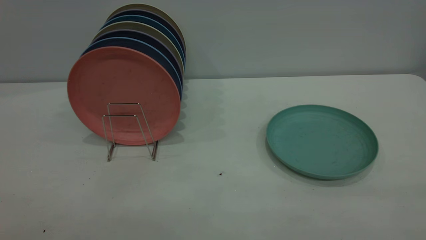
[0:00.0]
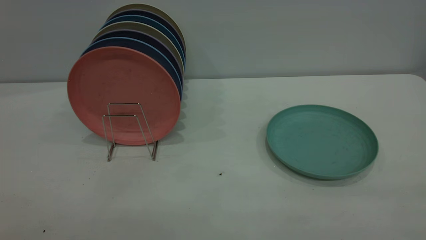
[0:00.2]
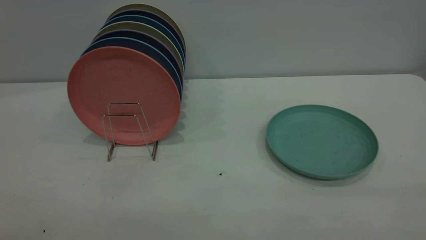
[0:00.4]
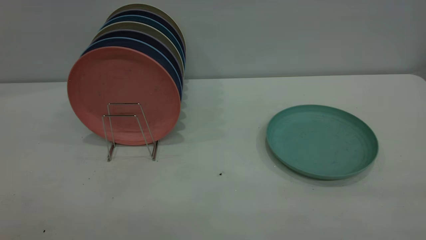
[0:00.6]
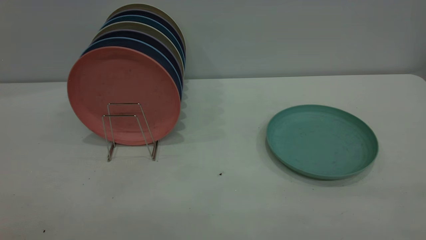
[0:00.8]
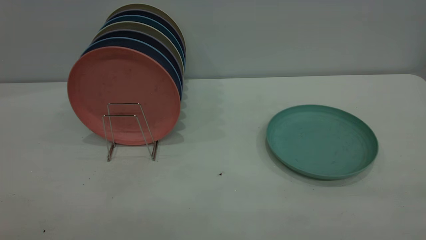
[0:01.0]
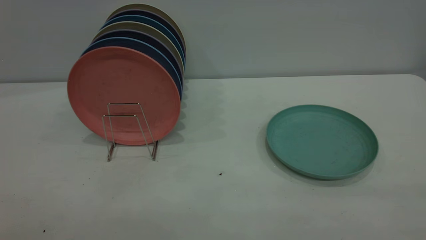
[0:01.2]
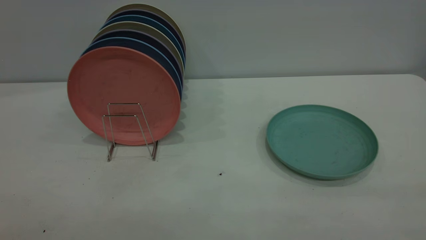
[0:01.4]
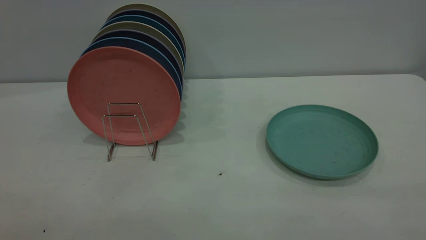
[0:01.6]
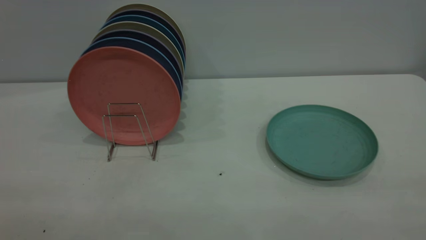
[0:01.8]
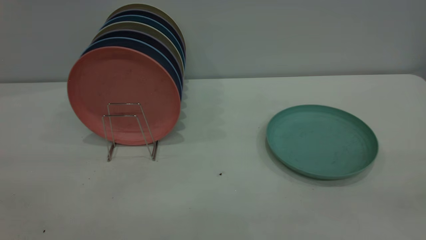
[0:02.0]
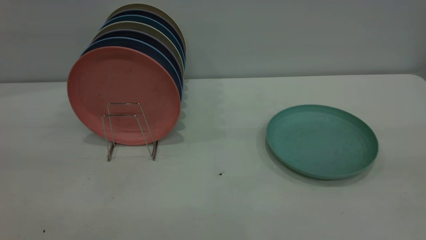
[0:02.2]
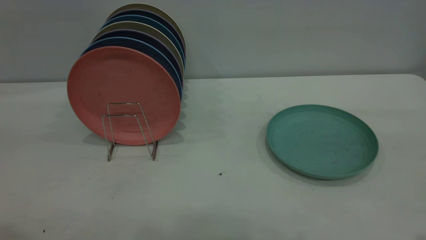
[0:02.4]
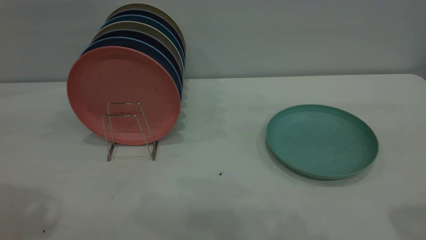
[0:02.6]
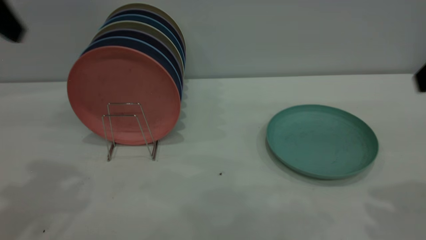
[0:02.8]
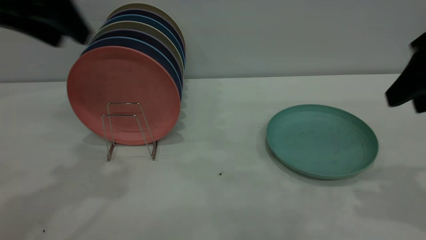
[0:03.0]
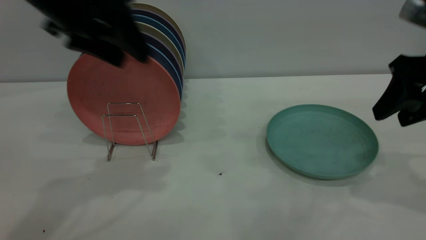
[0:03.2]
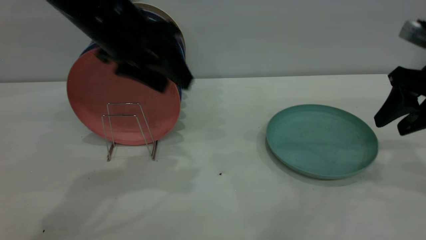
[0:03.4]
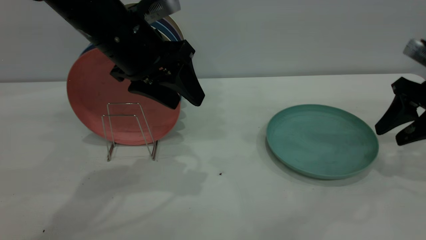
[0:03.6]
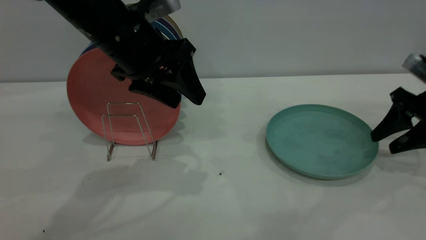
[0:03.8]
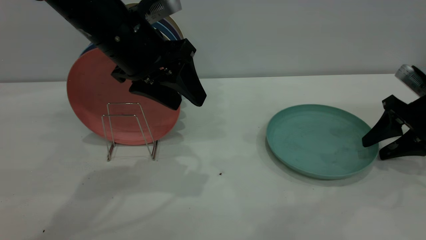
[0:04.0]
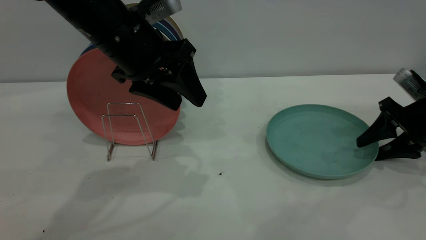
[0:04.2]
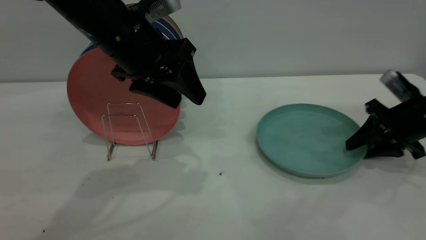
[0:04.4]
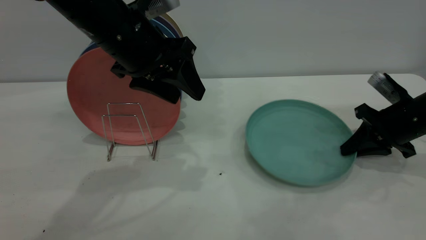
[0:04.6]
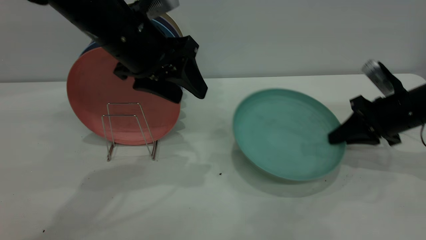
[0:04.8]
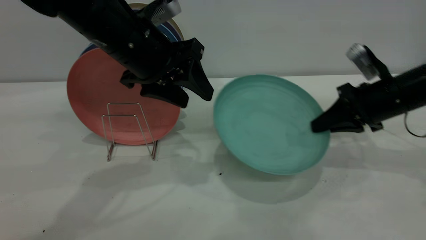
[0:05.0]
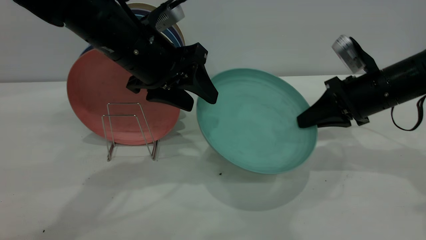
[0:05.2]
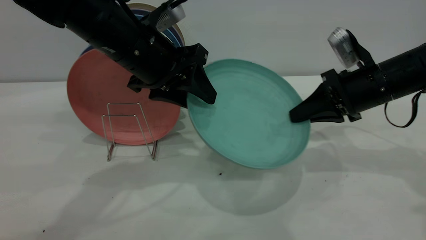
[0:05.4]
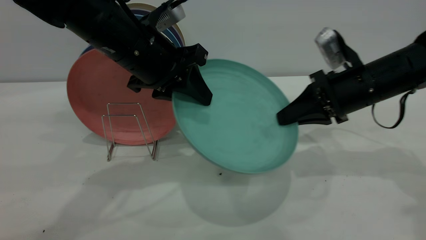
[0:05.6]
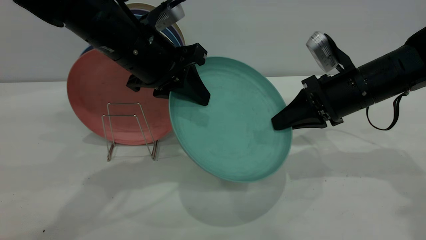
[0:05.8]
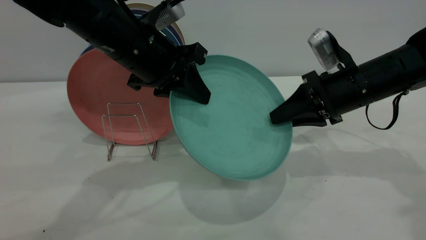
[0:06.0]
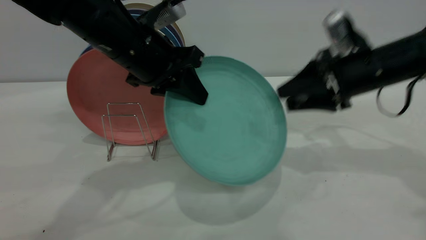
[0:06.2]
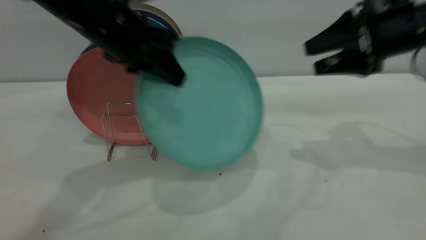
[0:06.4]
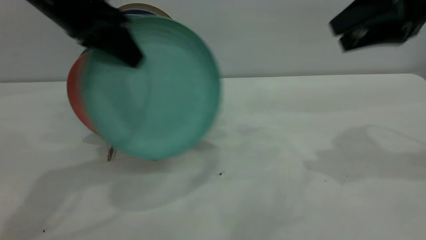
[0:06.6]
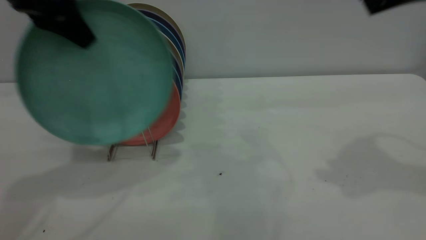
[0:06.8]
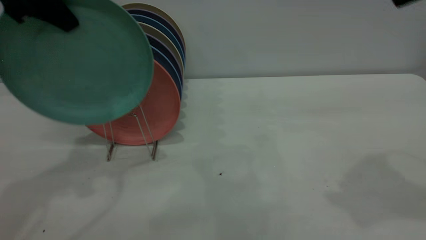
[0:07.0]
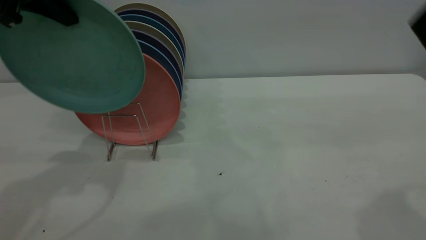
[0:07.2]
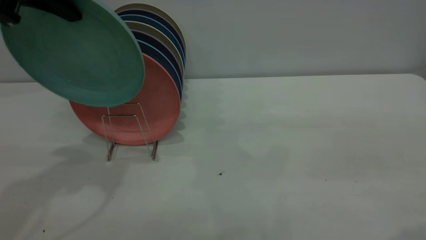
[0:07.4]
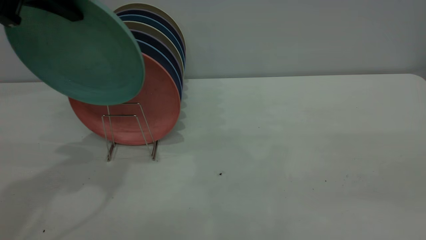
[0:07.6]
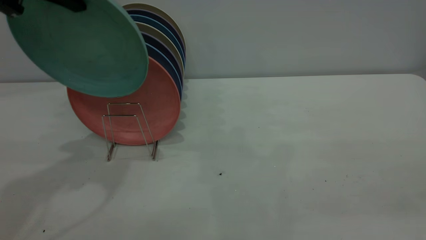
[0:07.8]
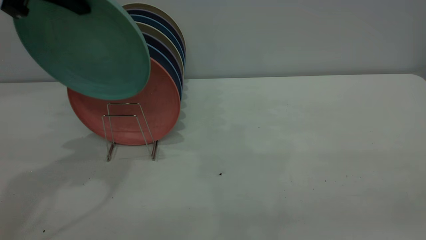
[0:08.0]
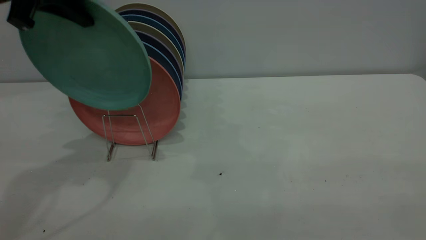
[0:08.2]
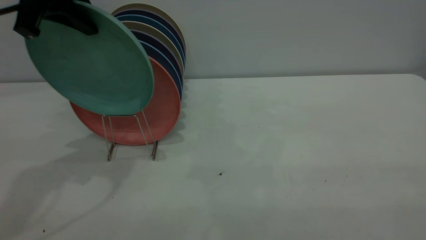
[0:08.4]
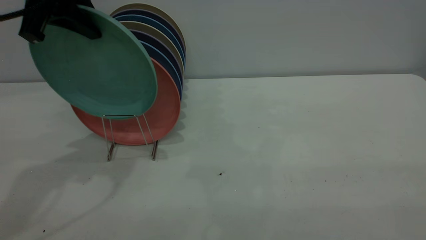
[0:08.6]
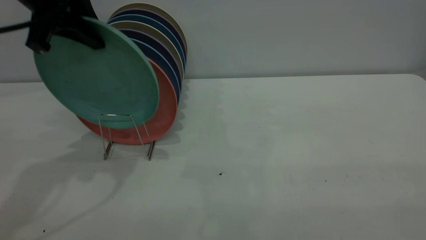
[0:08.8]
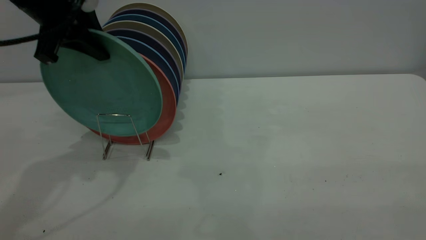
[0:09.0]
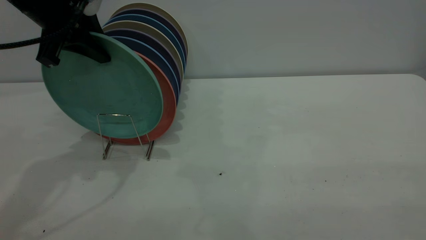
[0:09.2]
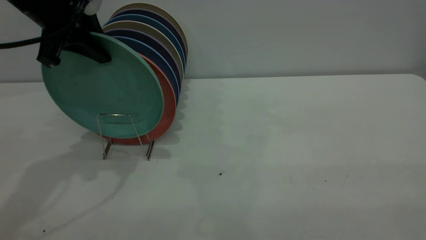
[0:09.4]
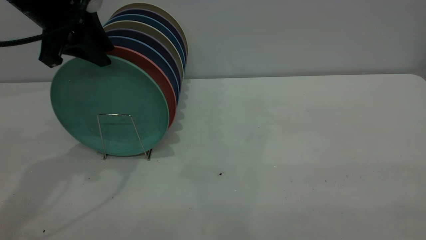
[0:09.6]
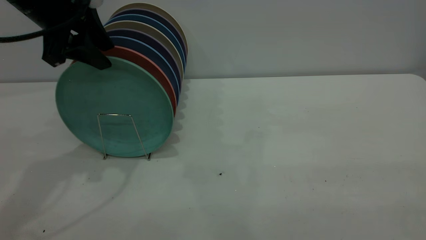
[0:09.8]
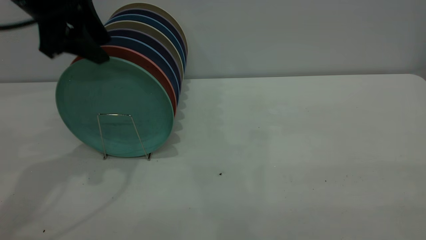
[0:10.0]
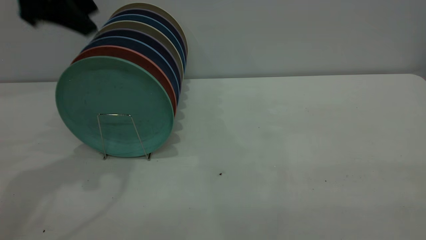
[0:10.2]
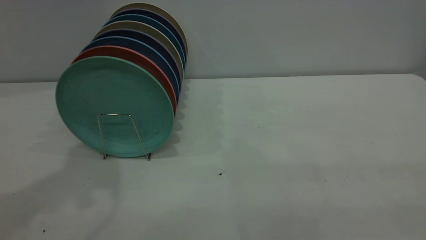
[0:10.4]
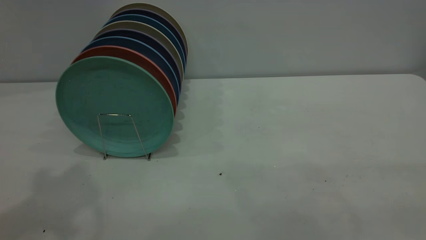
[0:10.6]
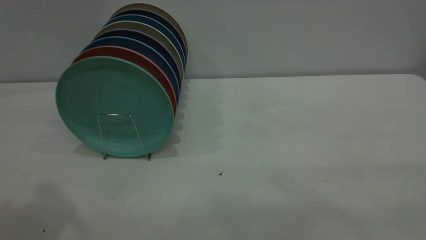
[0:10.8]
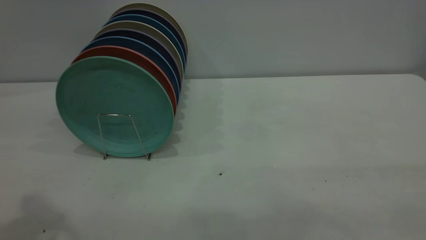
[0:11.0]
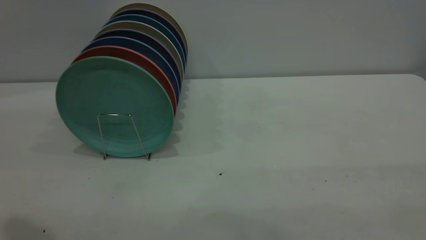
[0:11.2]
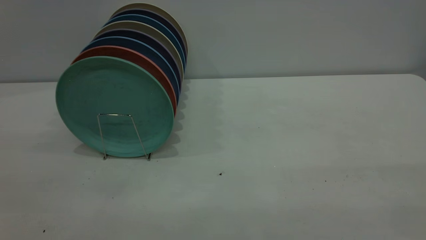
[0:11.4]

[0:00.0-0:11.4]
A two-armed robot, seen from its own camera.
Task of the whole recording: the right gripper grasp the green plate, the right gripper pass the green plate to the left gripper, and the left gripper place the green plate on the plate rack.
Step, 0:00.0 to 0:04.8: Pick up the plate with the right gripper.
Step, 0:05.0 to 0:06.0: Pass the plate from the right gripper to the left gripper.
Step, 0:06.4 to 0:10.0: Place the plate on the shelf.
0:00.0 to 0:01.4: Both grippers stay about where they are.
0:01.4 to 0:02.8: The left gripper moves forward, some 30 cm.
0:02.8 to 0:04.2: The left gripper goes roughly 20 cm to the right, downward and forward. Meanwhile the right gripper is displaced downward and forward by roughly 25 cm.
0:04.2 to 0:05.6: The right gripper travels to the left by about 15 cm, and closes up. Meanwhile the left gripper closes.
0:05.6 to 0:07.2: The left gripper is displaced upward and to the left by approximately 20 cm; the right gripper travels upward and backward by approximately 30 cm, and opens.
0:08.6 to 0:10.0: The left gripper opens up.
0:10.0 to 0:11.4: The left gripper moves backward, about 25 cm.

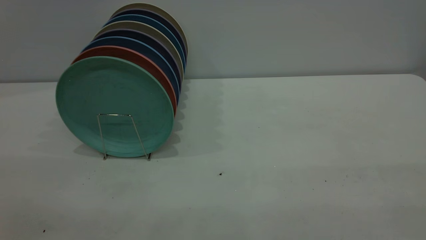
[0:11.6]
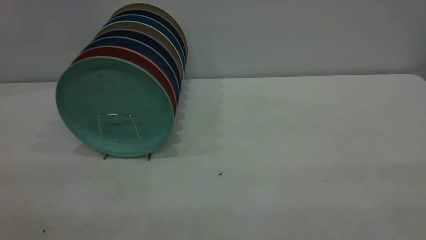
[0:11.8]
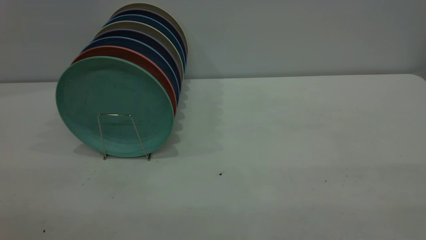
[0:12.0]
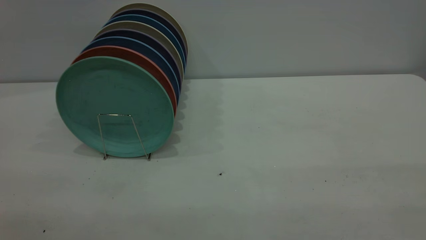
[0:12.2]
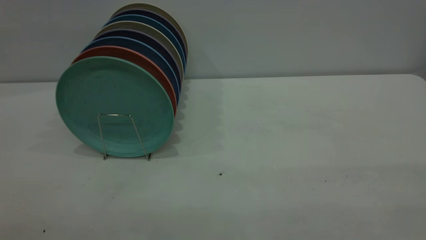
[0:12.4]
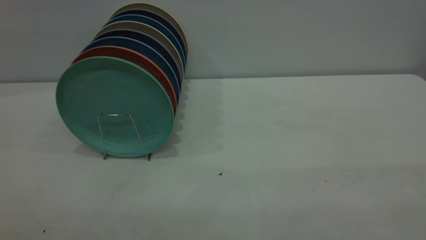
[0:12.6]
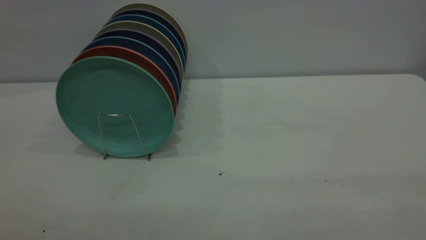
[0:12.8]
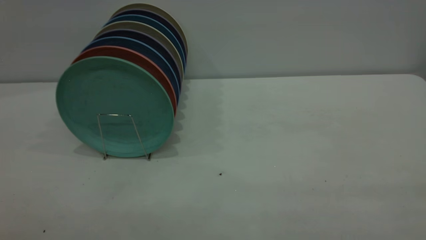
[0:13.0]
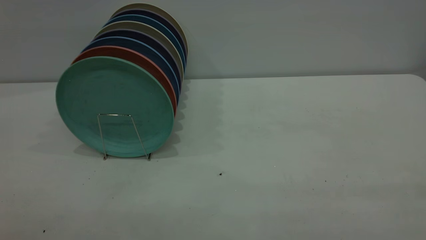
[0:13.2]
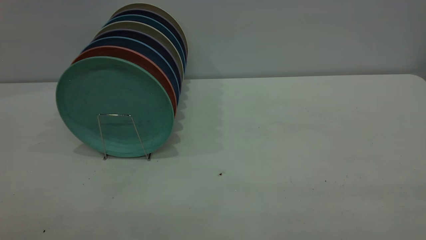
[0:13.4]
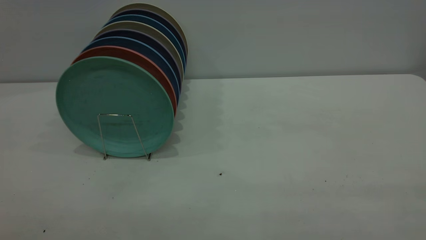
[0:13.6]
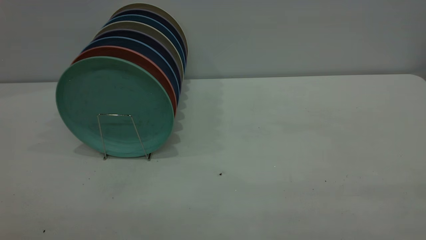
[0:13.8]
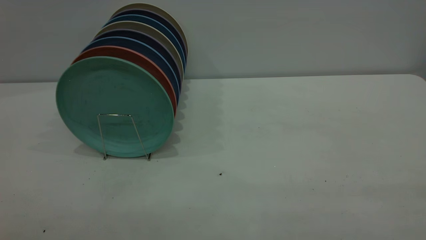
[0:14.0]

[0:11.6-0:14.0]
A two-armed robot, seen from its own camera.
Task of the whole recording: the right gripper grasp the green plate, the right gripper pass the green plate to the left gripper, and the left gripper place the green plate on the plate rack.
0:12.8 to 0:14.0: Both grippers stay put.

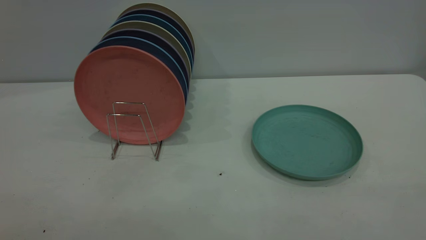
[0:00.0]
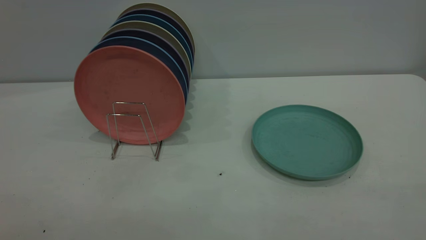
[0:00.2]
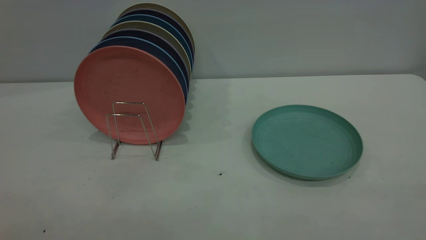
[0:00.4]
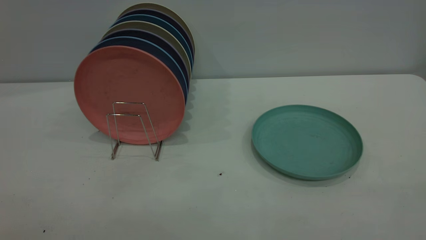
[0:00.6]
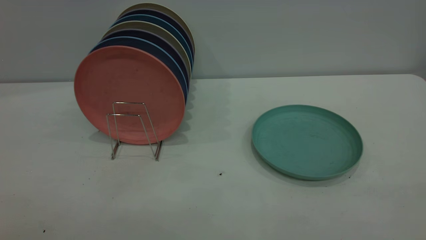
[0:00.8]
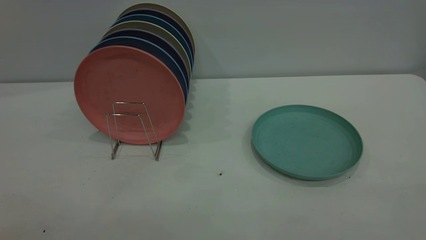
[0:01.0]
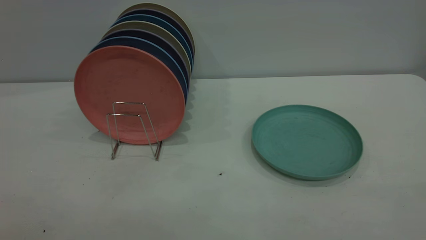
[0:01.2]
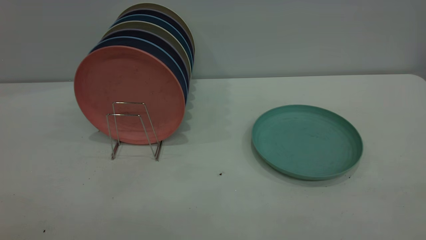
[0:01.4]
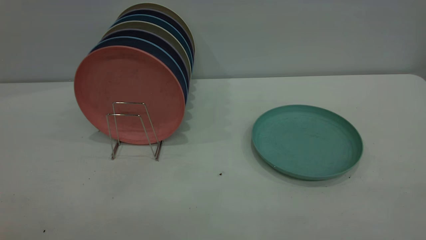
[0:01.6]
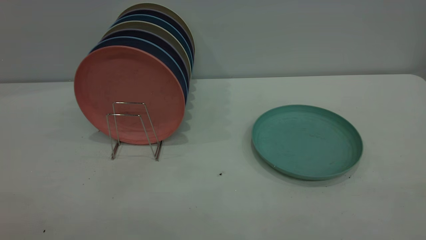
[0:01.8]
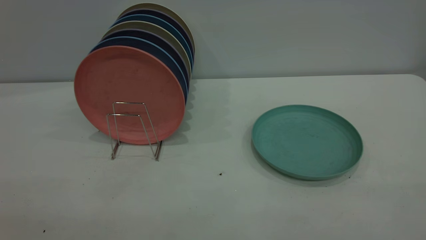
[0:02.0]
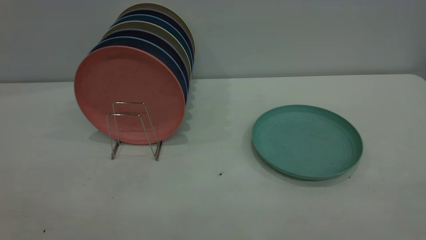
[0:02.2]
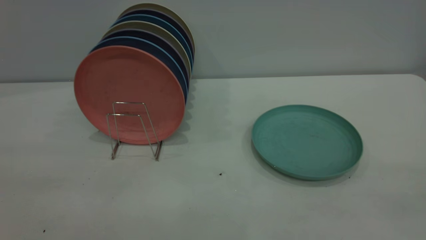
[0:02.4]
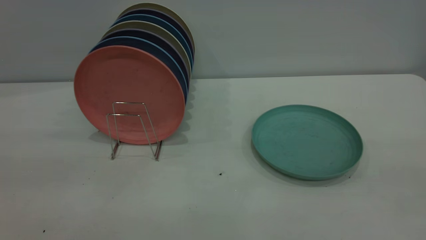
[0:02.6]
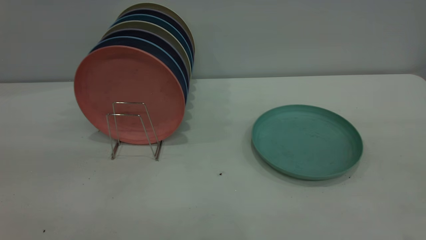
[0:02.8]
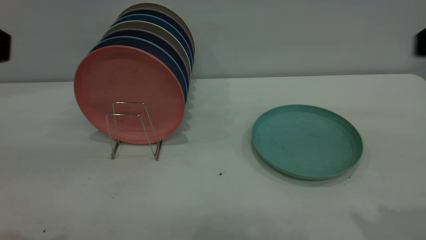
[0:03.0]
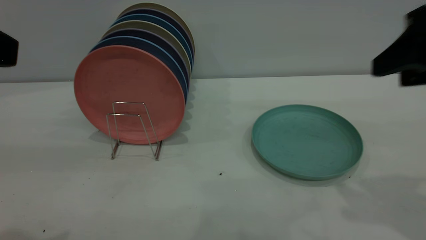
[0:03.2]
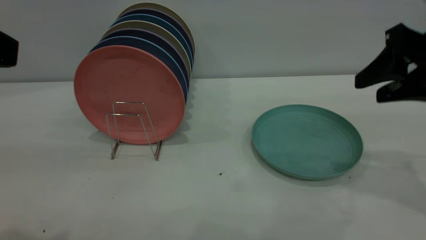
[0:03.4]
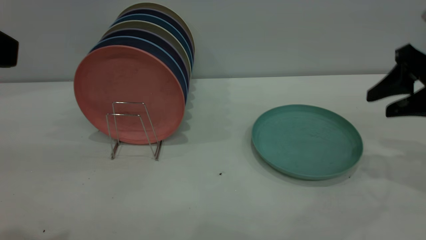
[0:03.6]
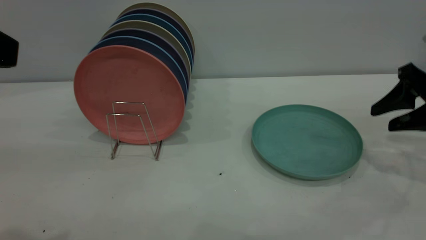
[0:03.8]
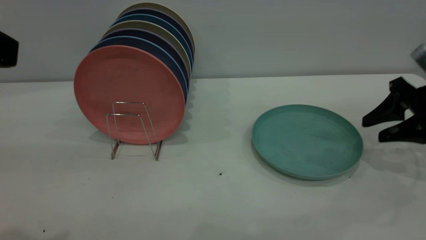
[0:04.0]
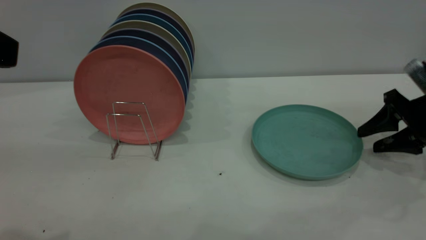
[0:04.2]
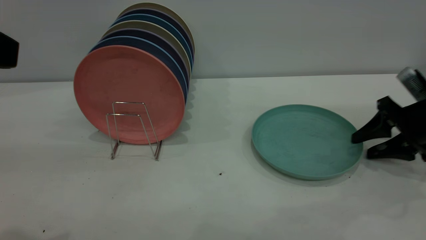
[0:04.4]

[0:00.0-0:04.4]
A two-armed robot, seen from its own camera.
Task of the whole recording: the right gripper grasp the green plate, the right gripper pass the green plate to the left gripper, and the left gripper place the green plate on the plate rack.
0:00.0 to 0:01.4: Both grippers stay put.
0:03.0 to 0:04.4: The right gripper travels downward and forward by about 30 cm.
